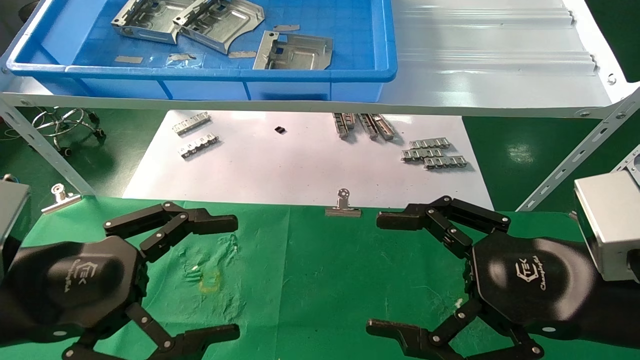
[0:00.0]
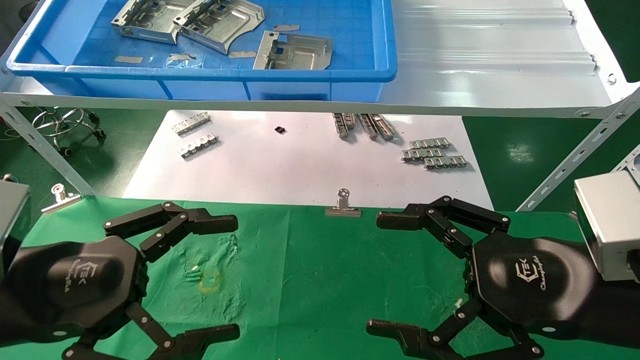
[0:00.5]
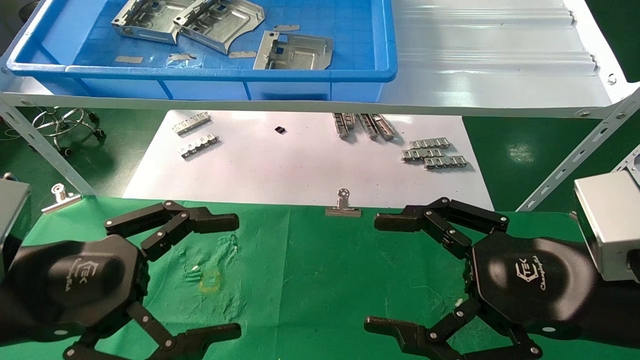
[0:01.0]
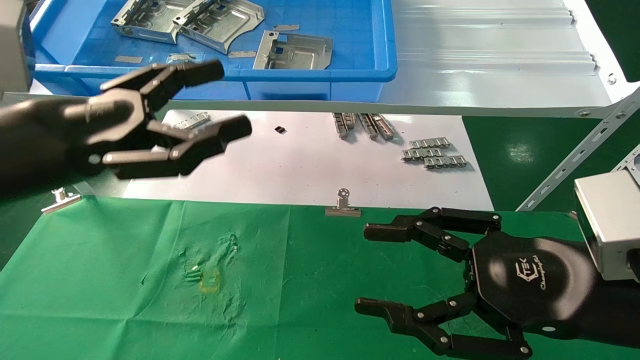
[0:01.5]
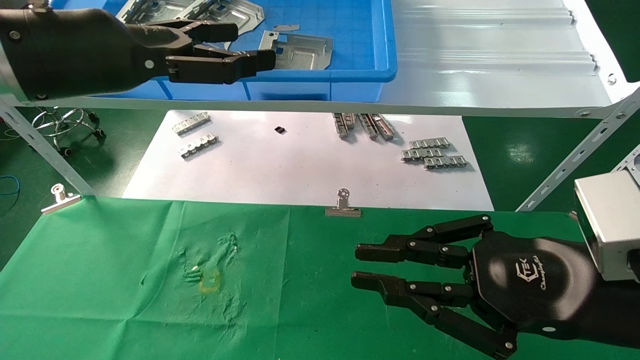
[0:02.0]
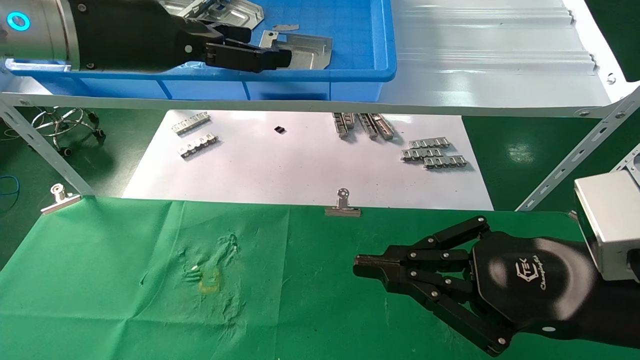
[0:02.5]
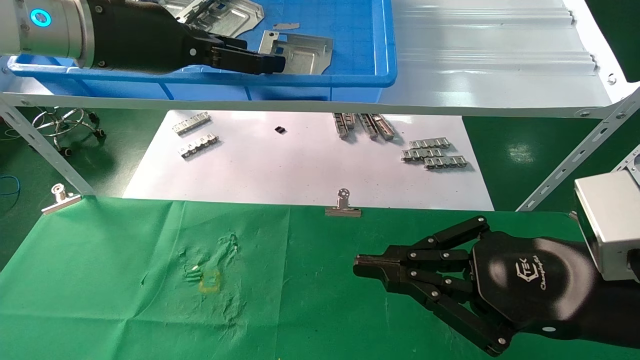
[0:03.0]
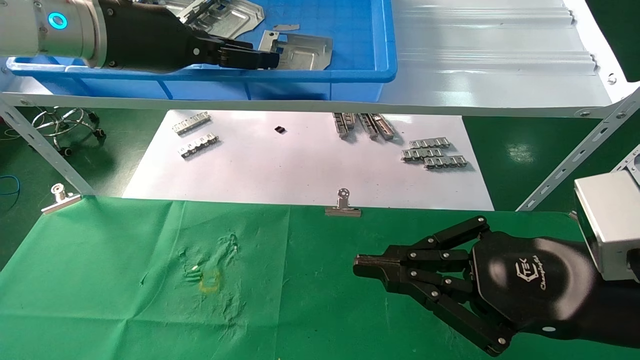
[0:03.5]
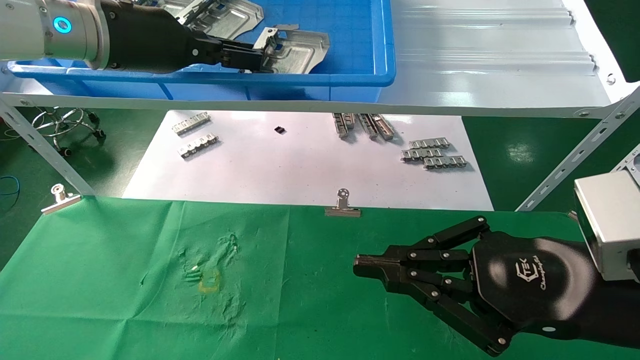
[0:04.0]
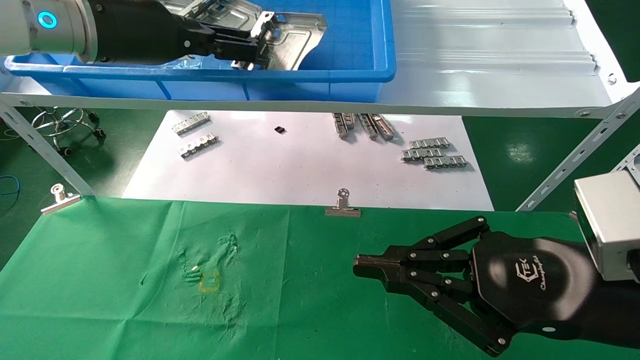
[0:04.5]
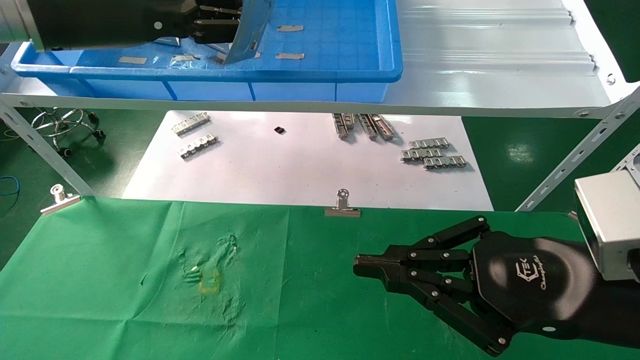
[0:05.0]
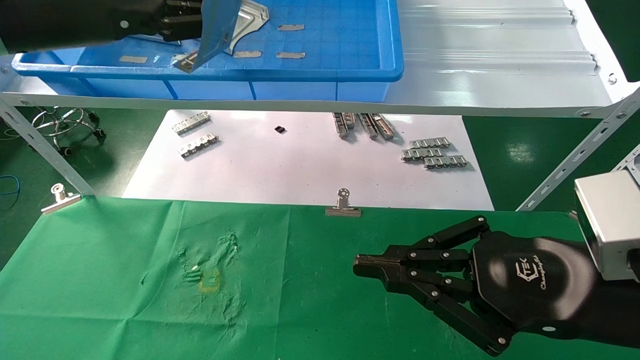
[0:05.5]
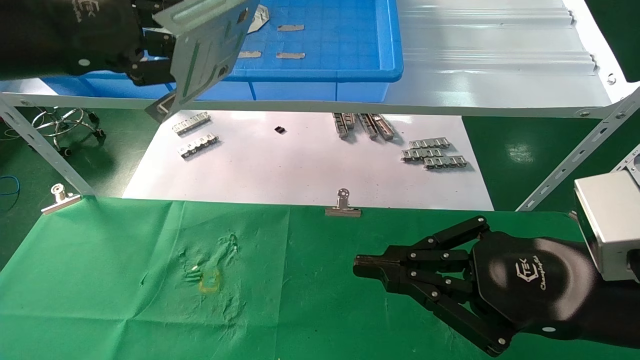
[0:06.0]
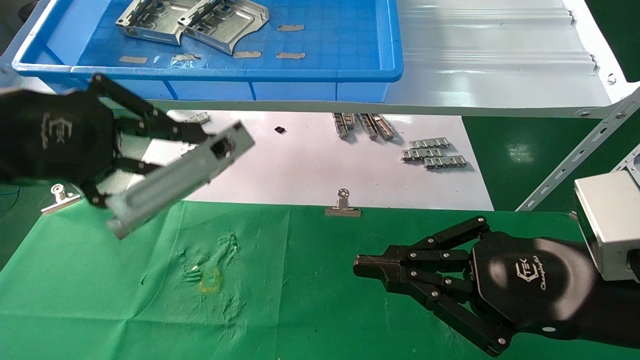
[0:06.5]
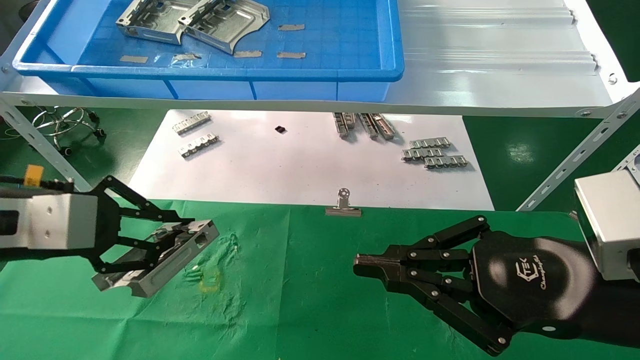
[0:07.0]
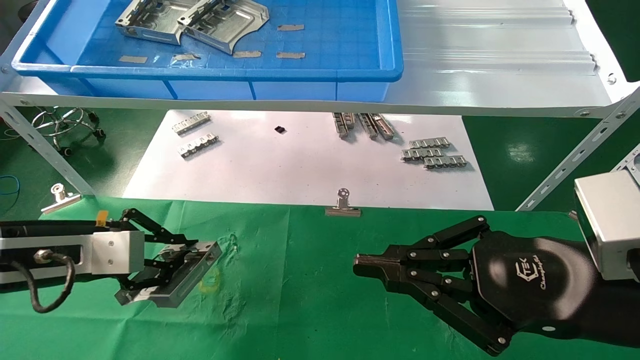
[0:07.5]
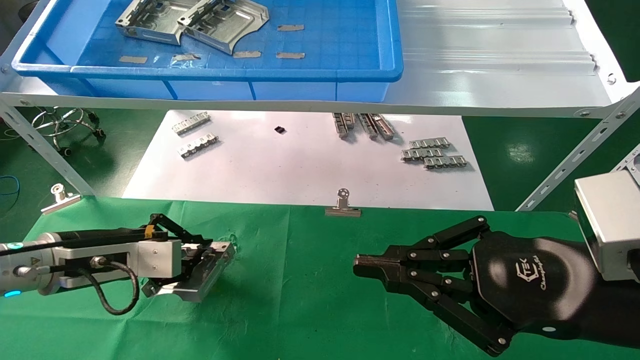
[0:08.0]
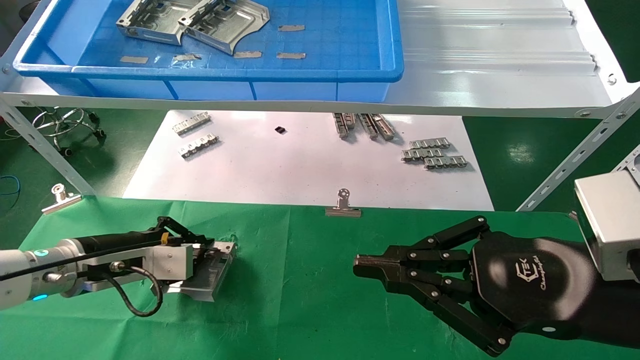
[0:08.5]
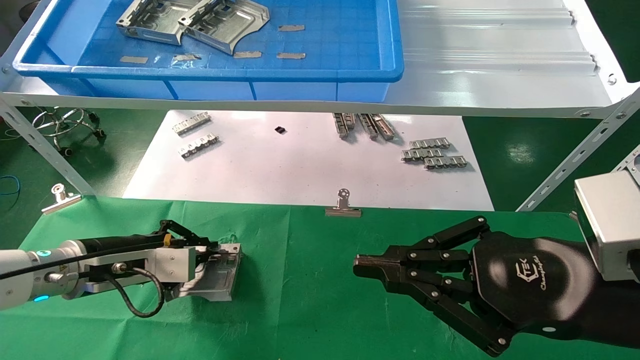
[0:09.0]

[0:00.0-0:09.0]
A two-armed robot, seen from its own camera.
Task of the whole recording: use the mechanical arm to pick up the parts and place them on the table.
Step, 0:01.5 to 0:04.0: Pick up the hard drive bracket from the feeding area.
0:00.0 to 0:02.0: The left gripper travels upward and forward by approximately 20 cm, while the right gripper closes.
0:02.0 to 0:04.5: The left gripper shifts about 5 cm forward, and closes up.
0:04.5 to 0:07.0: The left gripper goes roughly 25 cm downward, backward and to the left.
0:07.0 to 0:09.0: The left gripper goes some 15 cm downward and forward.

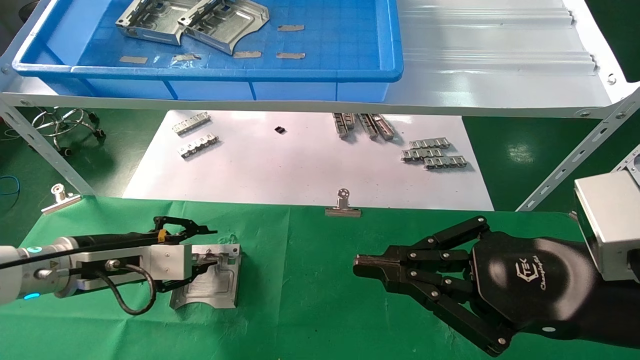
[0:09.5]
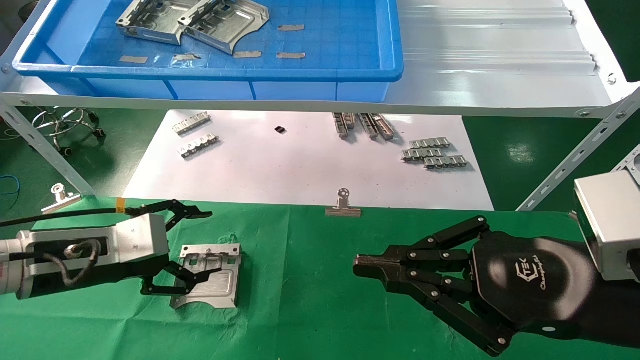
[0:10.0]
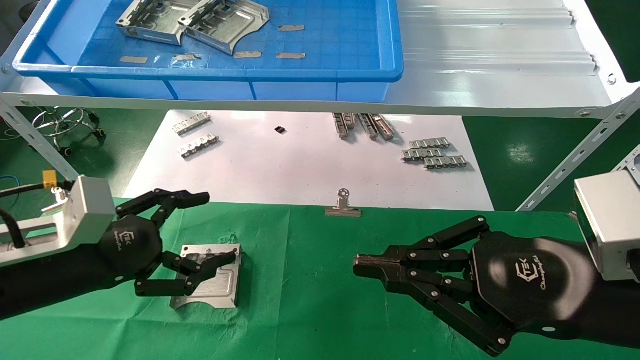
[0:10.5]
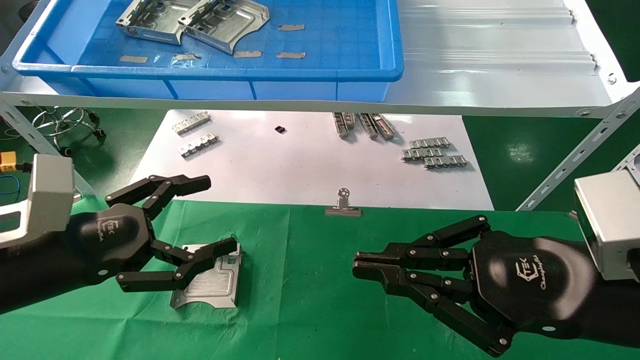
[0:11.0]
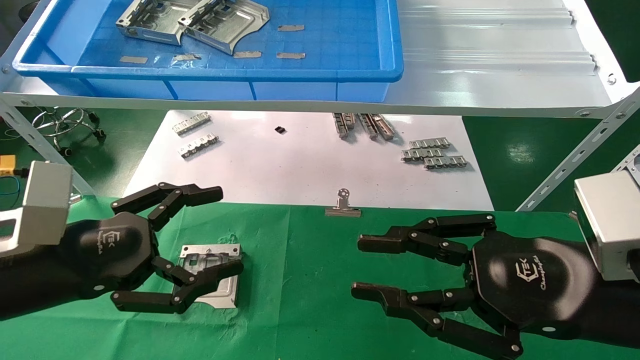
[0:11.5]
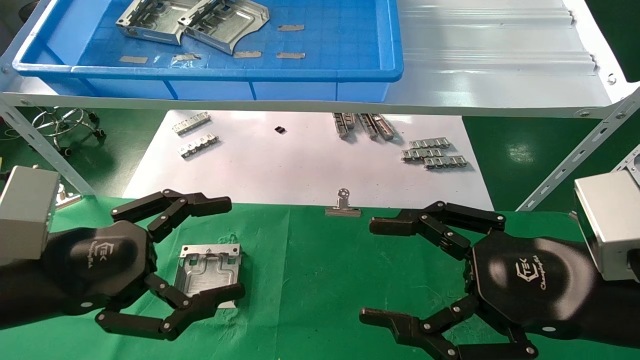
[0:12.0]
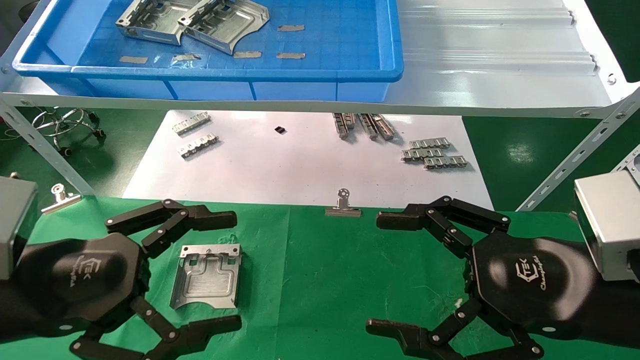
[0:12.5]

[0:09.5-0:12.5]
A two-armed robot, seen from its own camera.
Task of the whole recording: use the mechanical arm to pick up the parts and place them on the table.
0:09.5 to 0:11.0: The left gripper heads backward, covering roughly 10 cm, and opens its fingers.
0:11.0 to 0:12.5: The right gripper opens up; the left gripper shifts by approximately 5 cm.
